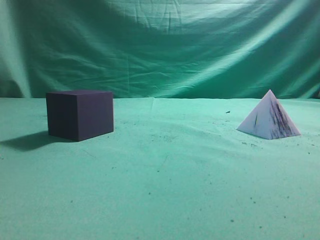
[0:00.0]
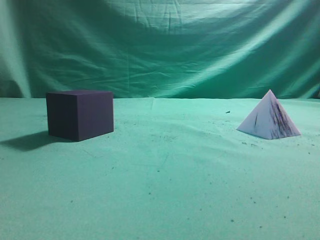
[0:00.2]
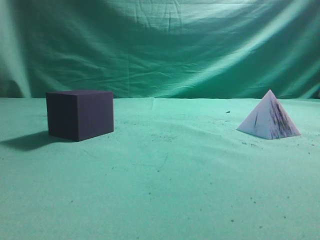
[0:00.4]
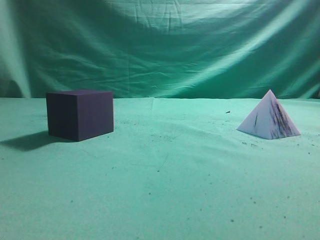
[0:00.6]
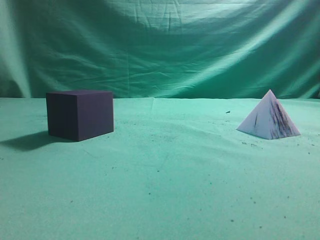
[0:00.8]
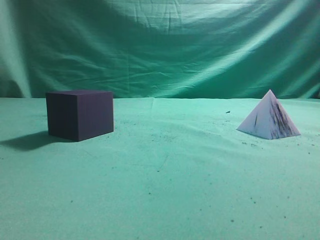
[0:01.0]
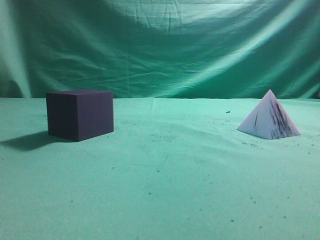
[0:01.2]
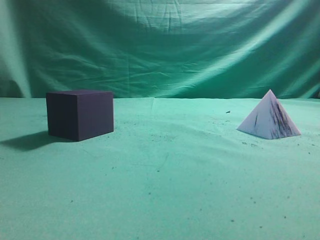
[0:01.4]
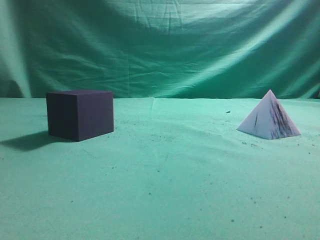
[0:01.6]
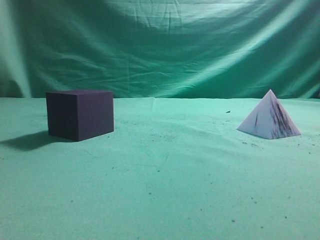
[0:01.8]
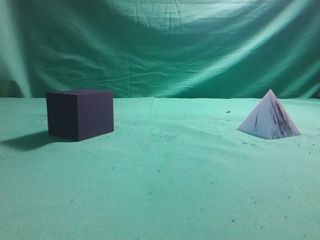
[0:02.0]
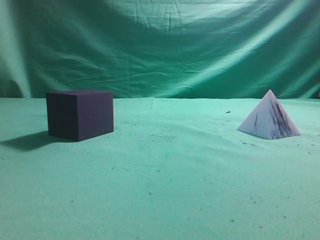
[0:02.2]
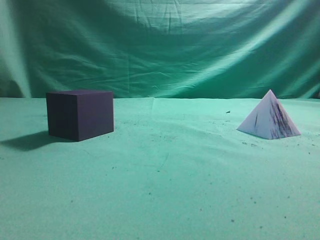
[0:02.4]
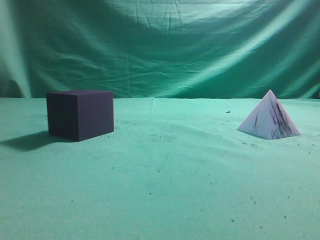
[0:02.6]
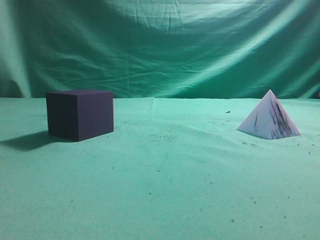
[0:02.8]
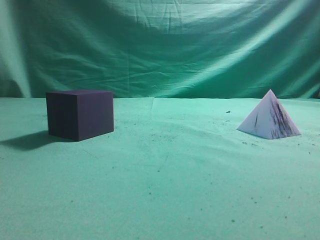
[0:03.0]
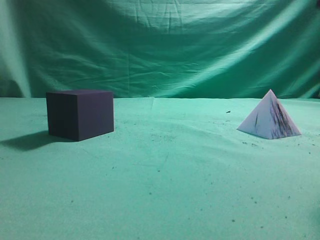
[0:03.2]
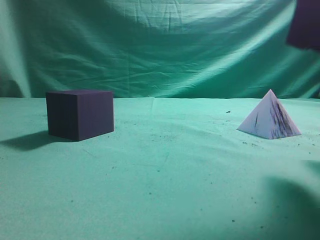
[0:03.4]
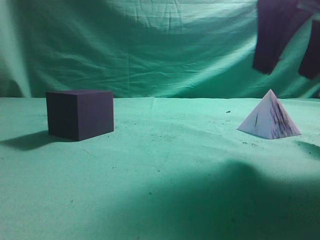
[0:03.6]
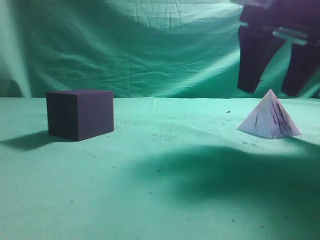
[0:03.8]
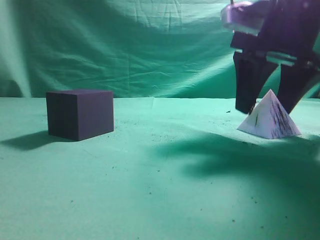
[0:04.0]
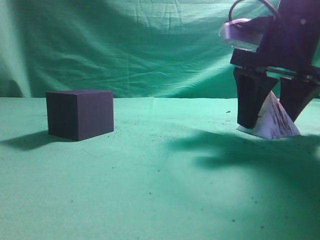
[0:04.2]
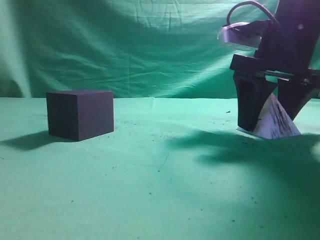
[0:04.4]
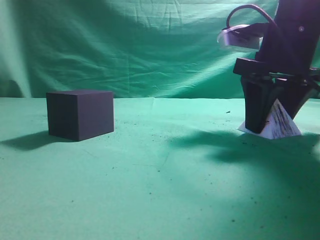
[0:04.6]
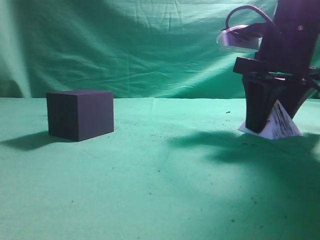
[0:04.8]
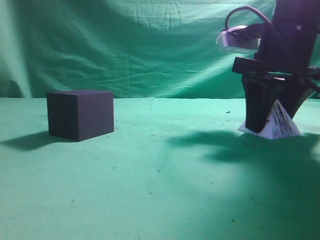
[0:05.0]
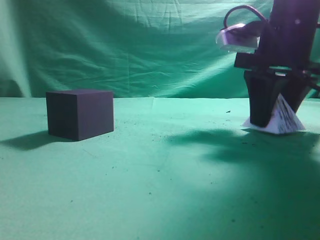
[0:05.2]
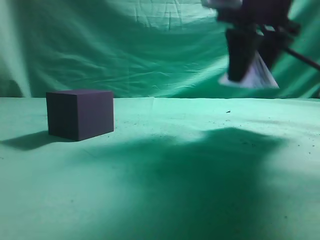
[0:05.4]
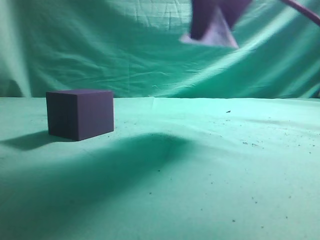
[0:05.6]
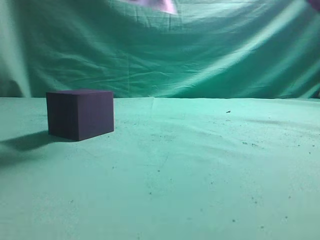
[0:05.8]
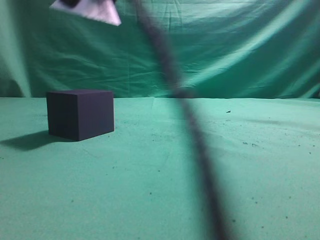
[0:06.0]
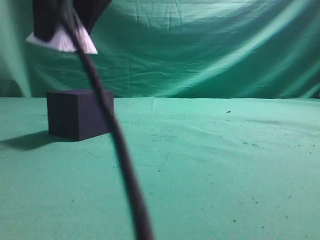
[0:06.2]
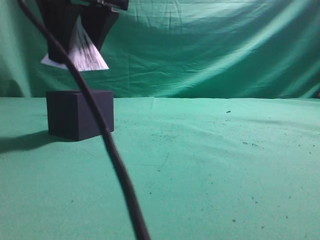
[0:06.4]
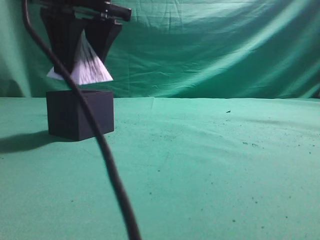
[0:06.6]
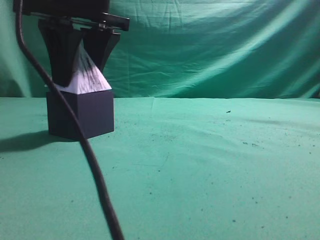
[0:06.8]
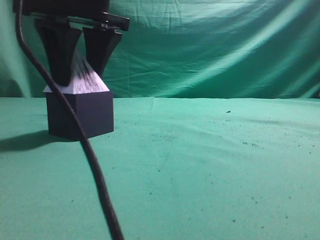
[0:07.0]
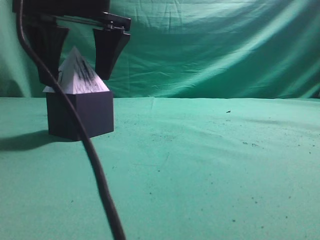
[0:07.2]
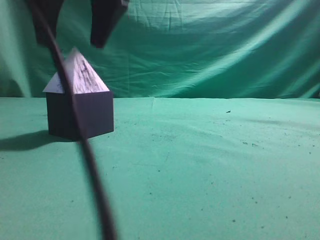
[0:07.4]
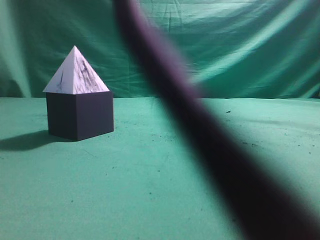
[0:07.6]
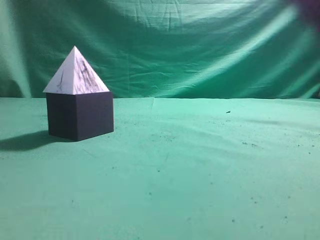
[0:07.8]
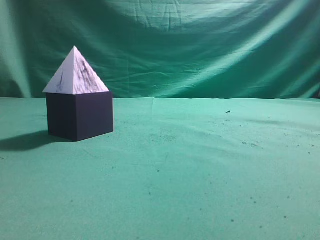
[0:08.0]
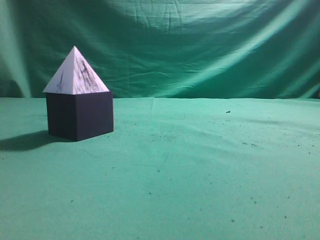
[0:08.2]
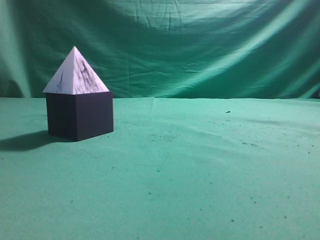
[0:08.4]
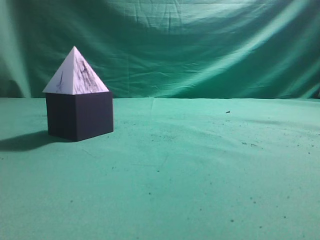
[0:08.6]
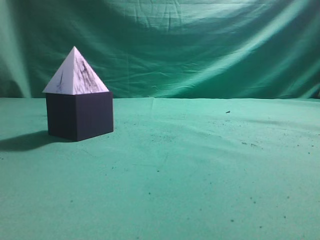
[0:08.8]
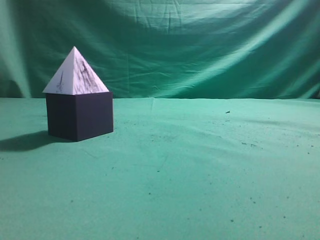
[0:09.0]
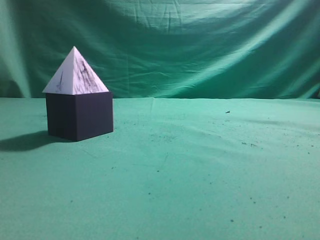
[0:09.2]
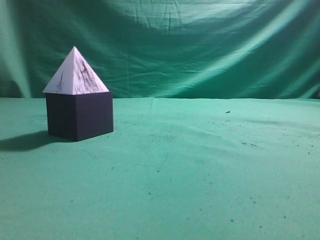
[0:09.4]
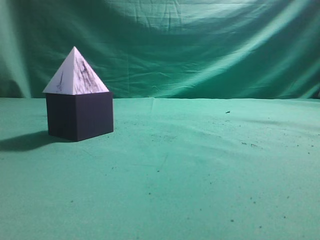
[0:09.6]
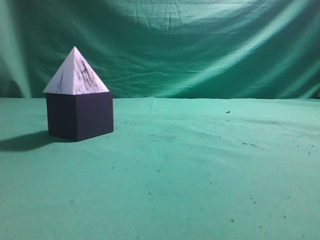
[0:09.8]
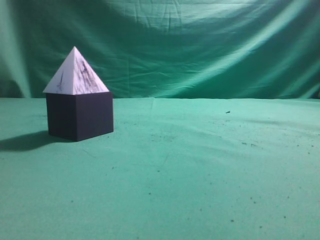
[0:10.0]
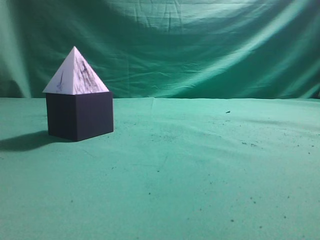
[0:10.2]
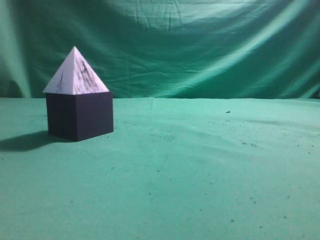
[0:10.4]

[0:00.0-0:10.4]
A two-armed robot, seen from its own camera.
Task of the whole recording: pick up the square pyramid from the table and place it on the cube block.
Step, 0:00.0 to 0:05.2: Grasp the triangular block.
Step, 0:05.4 to 0:07.4: Place the block onto the cube-shaped block.
0:03.0 to 0:04.4: The right gripper travels forward and downward by approximately 20 cm, and opens.
0:04.4 to 0:06.0: The right gripper is displaced to the left and upward by approximately 25 cm.
0:06.0 to 0:07.4: The right gripper opens.
0:07.4 to 0:09.0: The right gripper heads to the right, backward and upward, covering about 40 cm, and closes.
